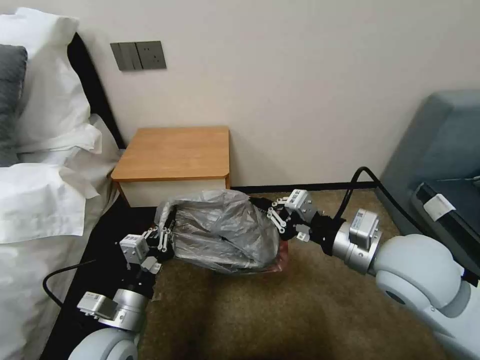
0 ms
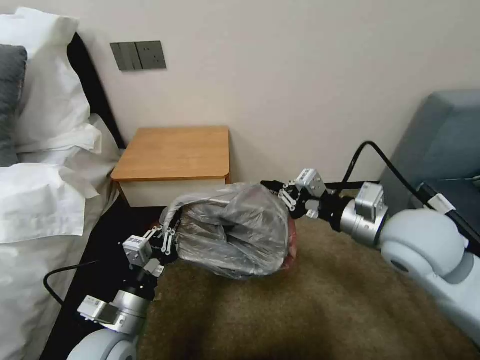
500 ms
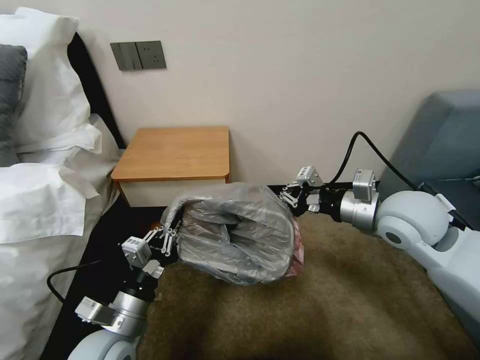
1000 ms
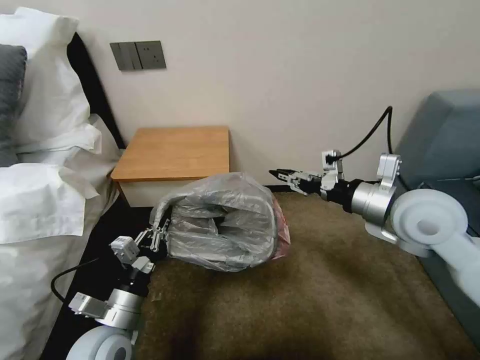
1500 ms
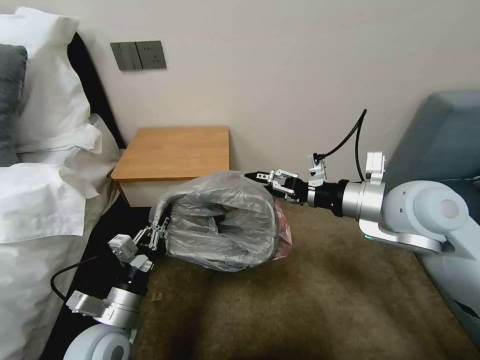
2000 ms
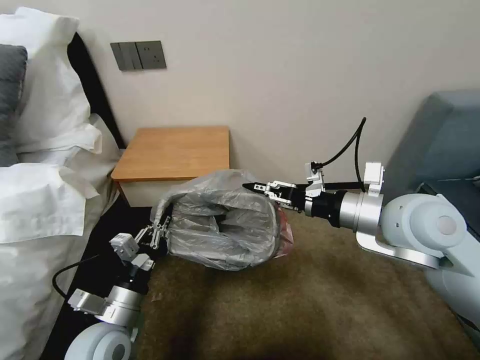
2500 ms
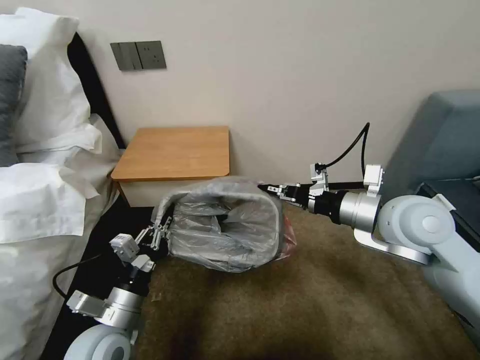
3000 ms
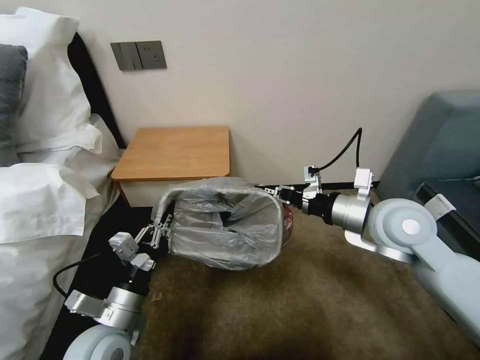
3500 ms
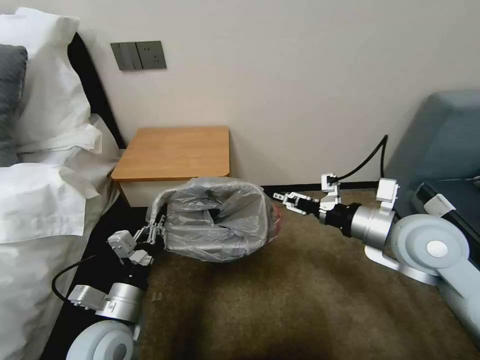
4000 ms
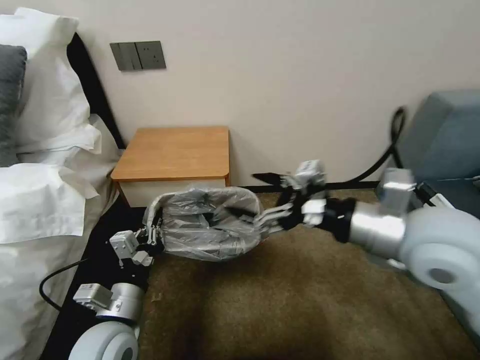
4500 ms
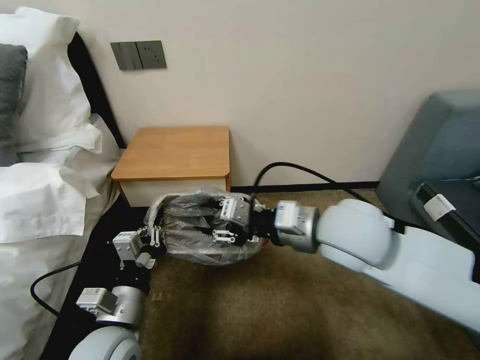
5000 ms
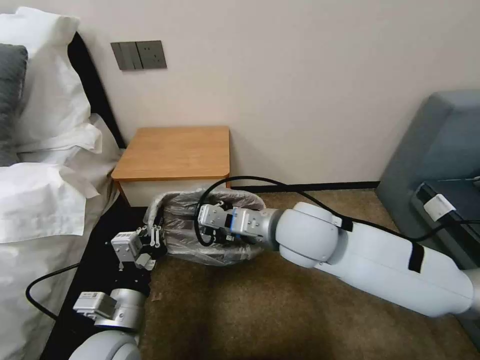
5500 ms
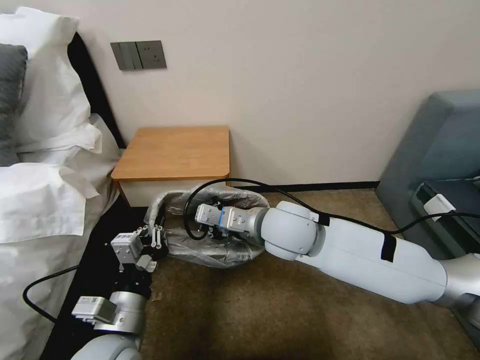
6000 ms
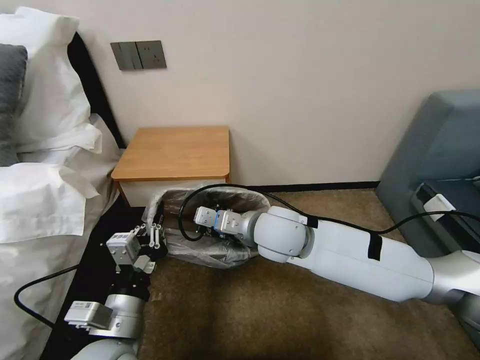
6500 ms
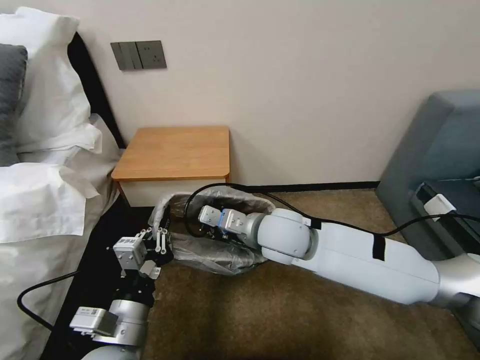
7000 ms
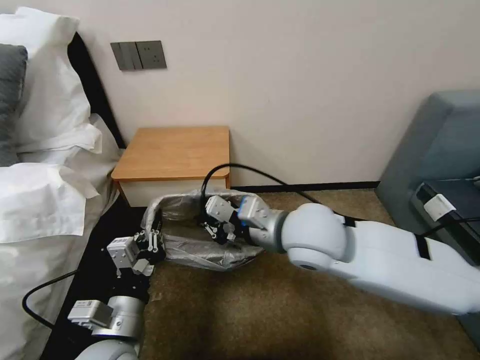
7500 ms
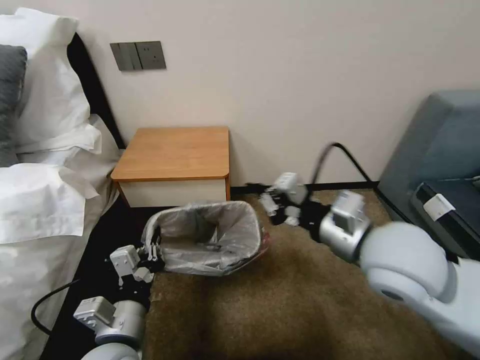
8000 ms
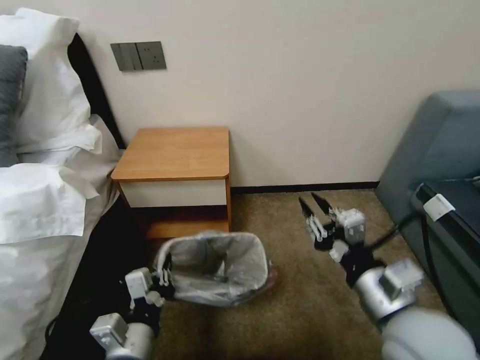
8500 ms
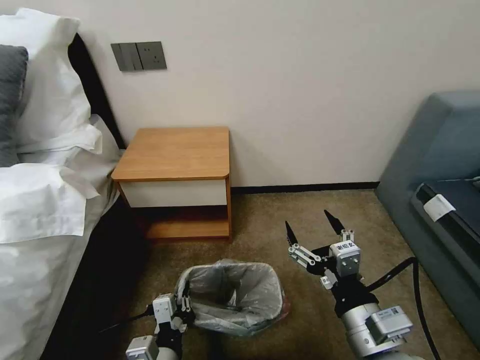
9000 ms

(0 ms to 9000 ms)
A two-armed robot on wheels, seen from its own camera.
Task of the whole recording: Pick up the garbage bag from the table and place it over the trash can.
0 ms - 2000 ms: The right gripper goes some 5 cm forward, and opens.
2000 ms - 4500 ms: The right gripper goes about 5 cm backward, and closes, then opens again.
4500 ms - 7000 ms: The right gripper goes roughly 20 cm to the left, downward and forward, and closes, while the left gripper moves about 5 cm.
7000 ms - 9000 ms: The left gripper moves downward, about 10 cm, while the right gripper travels backward and to the right by about 25 cm, and opens its fingers.

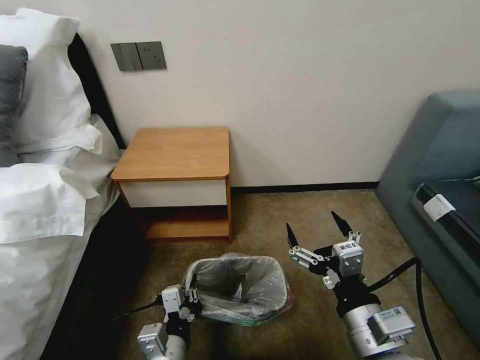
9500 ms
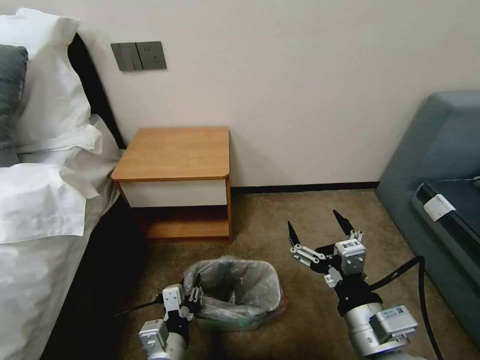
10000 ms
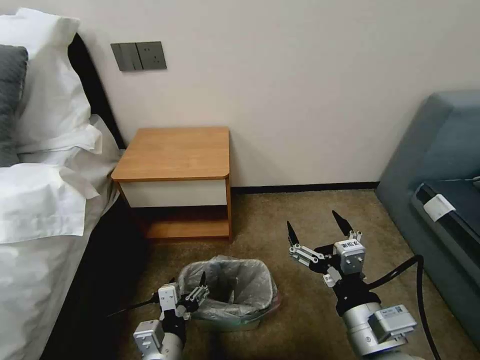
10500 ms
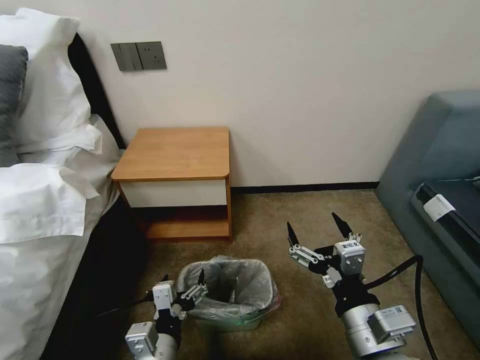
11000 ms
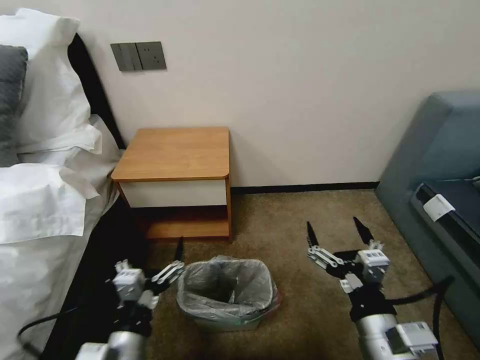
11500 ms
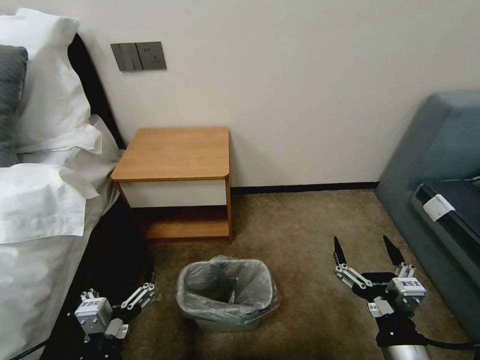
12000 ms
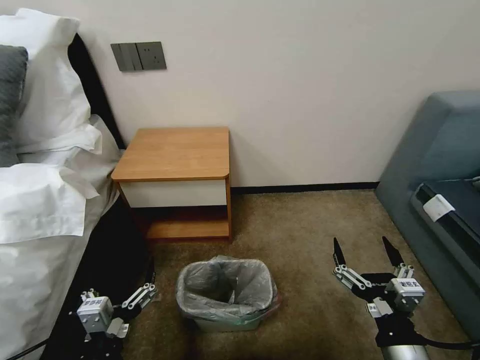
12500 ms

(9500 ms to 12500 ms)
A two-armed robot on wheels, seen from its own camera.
Task of the whole recording: Pick up the garbage bag from the table and place it over the trash can.
9500 ms - 11000 ms: The left gripper opens up.
11000 ms - 12500 ms: The left gripper is displaced to the left and backward by approximately 10 cm; the right gripper is displaced downward and to the right by some 5 cm.

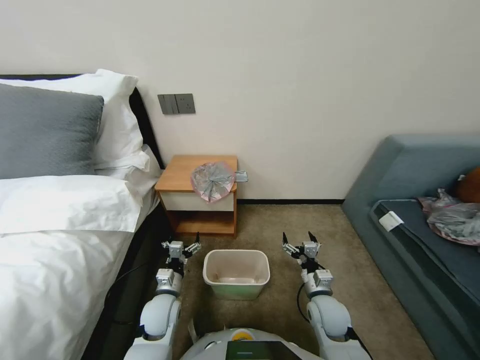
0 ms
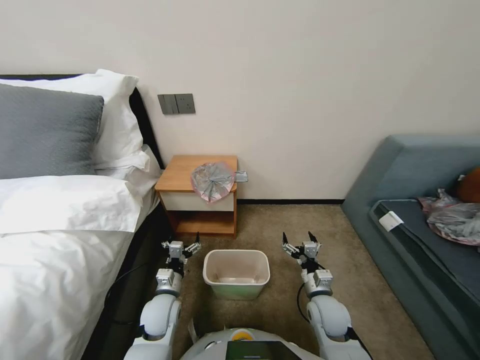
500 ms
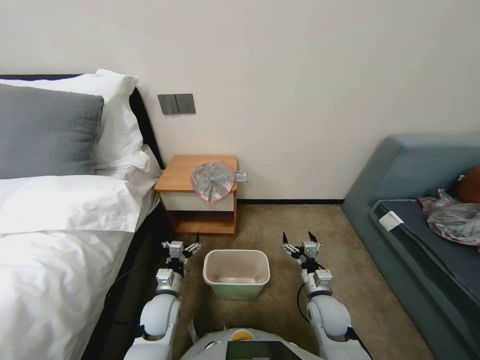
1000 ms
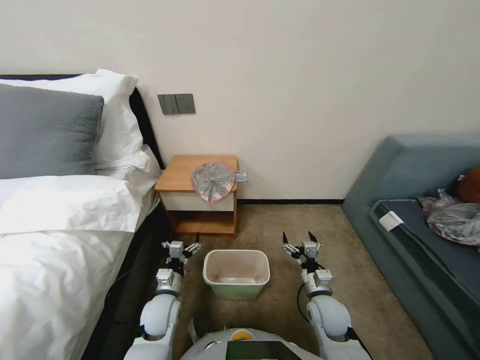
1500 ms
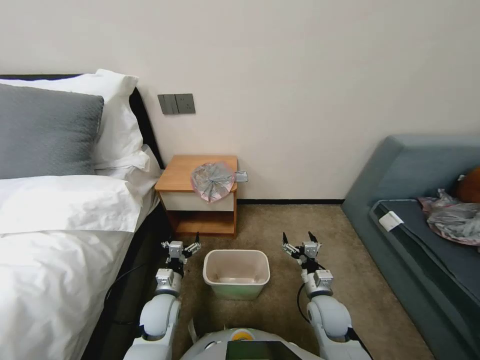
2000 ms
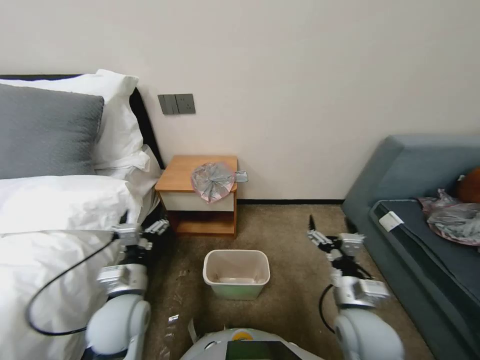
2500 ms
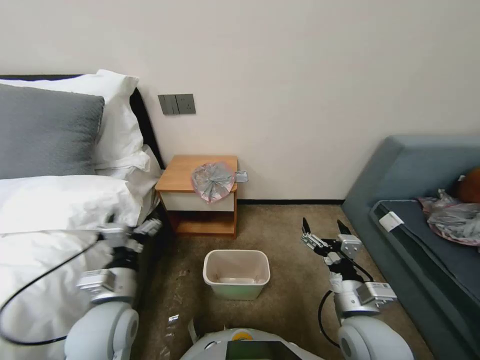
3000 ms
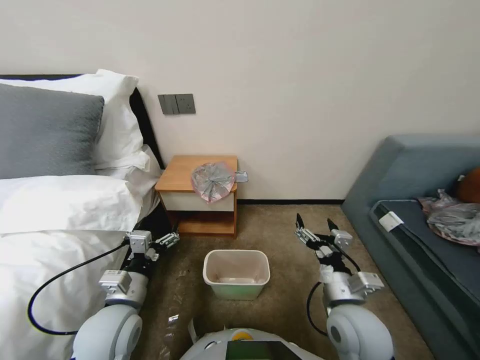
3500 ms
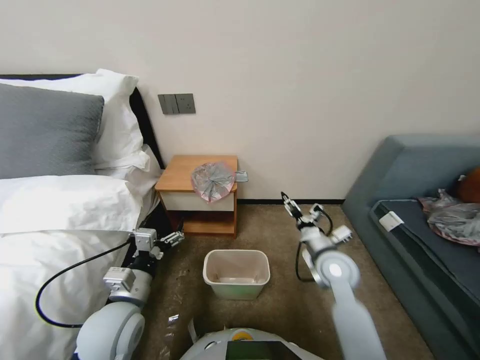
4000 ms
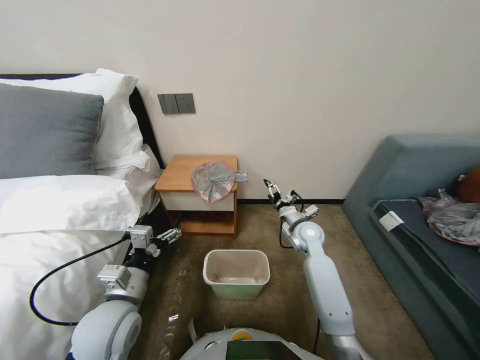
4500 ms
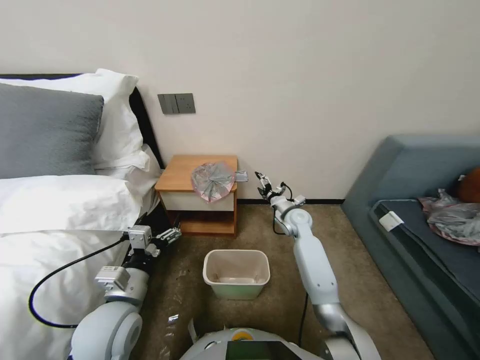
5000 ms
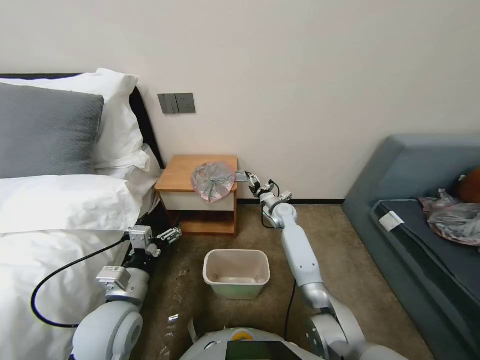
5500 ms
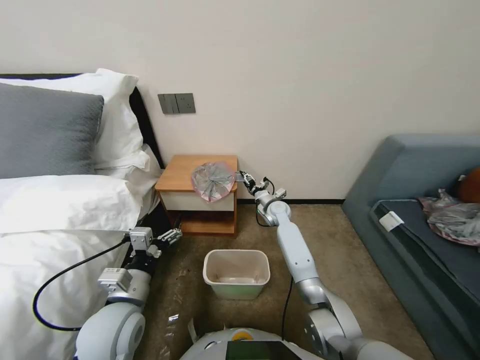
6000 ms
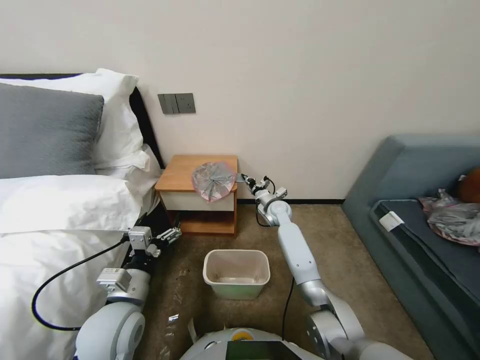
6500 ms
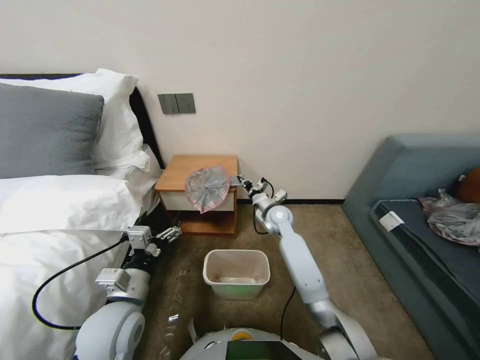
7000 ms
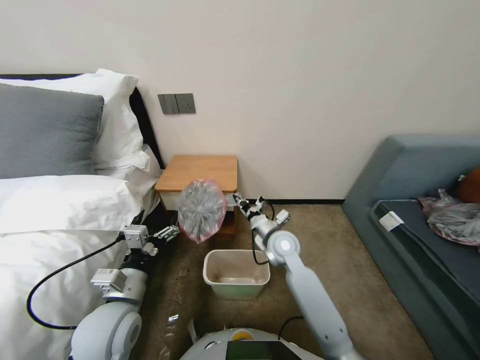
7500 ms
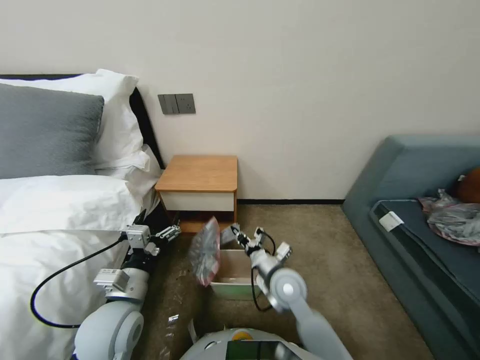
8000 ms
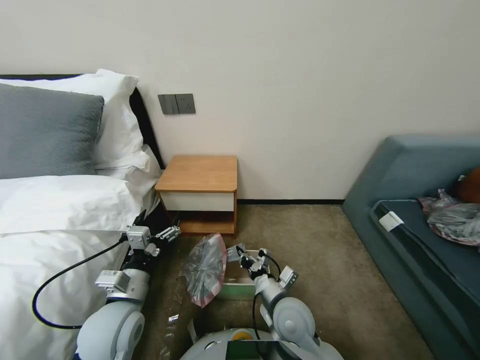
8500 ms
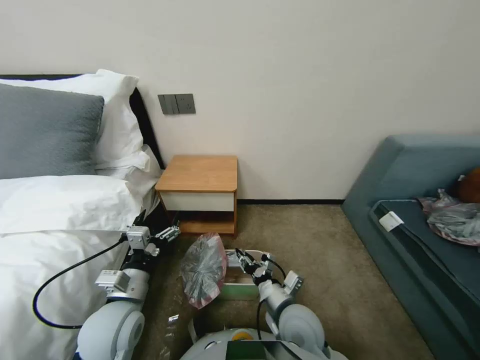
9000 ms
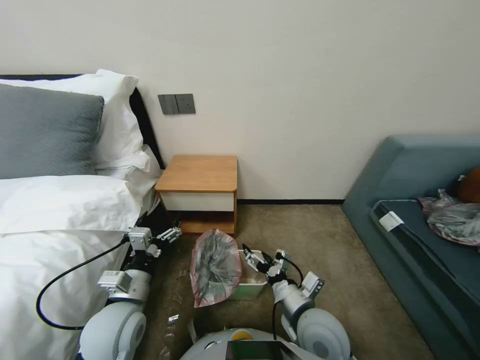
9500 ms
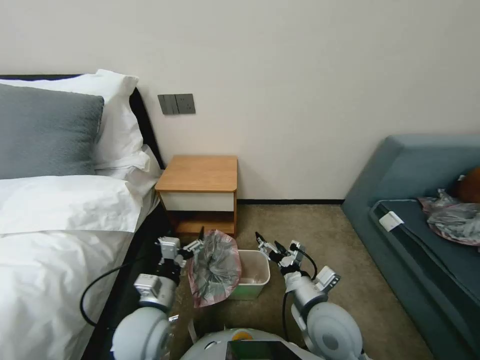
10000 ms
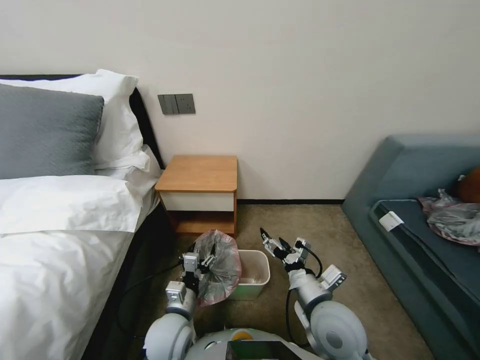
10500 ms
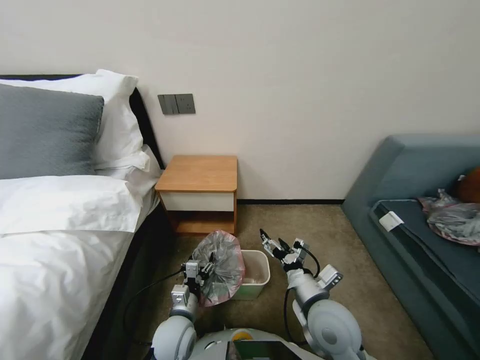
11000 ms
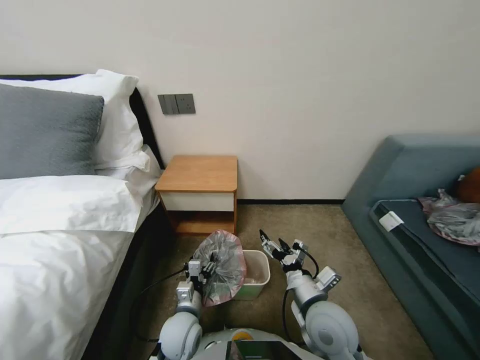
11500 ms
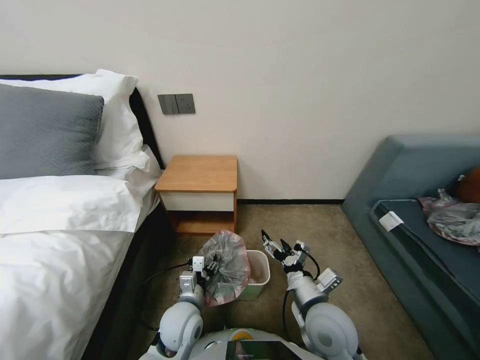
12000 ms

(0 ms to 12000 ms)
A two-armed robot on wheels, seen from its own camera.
Task of the whole recording: Pick up the garbage bag from the table and place it over the trash can.
2000 ms - 4000 ms: The two grippers go approximately 15 cm upward.
4000 ms - 6000 ms: The right gripper moves forward, approximately 25 cm.
6000 ms - 8000 ms: The right gripper is displaced backward by some 25 cm, and closes its fingers.
8000 ms - 10000 ms: The right gripper heads backward and to the right, covering approximately 10 cm, and opens.
10000 ms - 12000 ms: The left gripper travels downward and to the right by roughly 10 cm, and closes up.

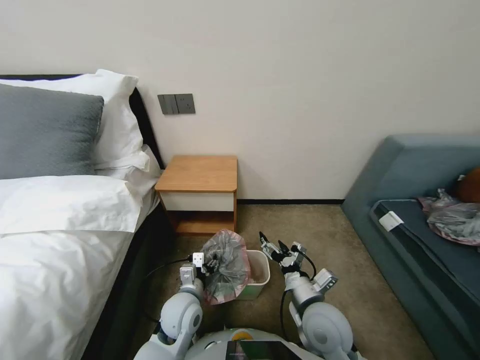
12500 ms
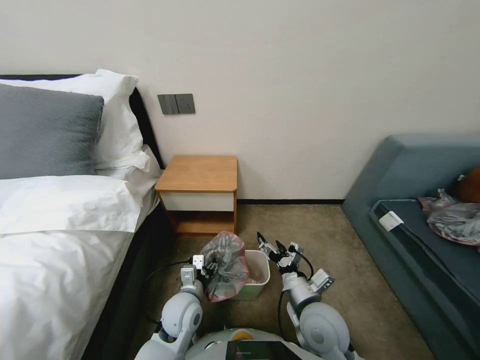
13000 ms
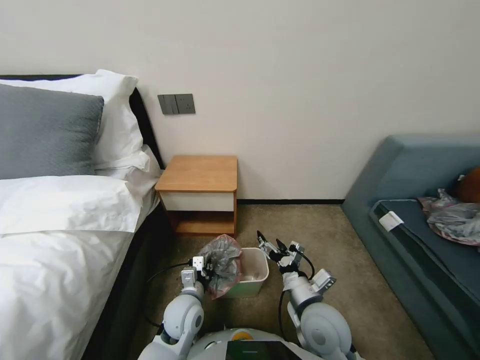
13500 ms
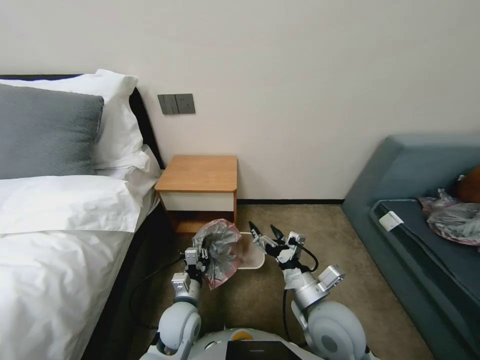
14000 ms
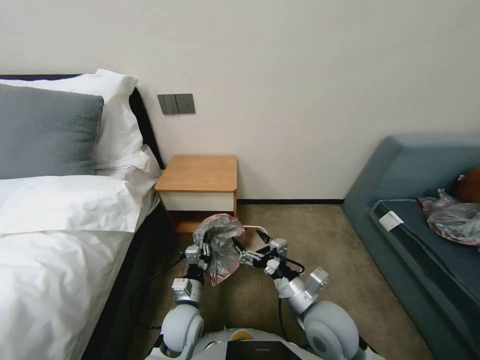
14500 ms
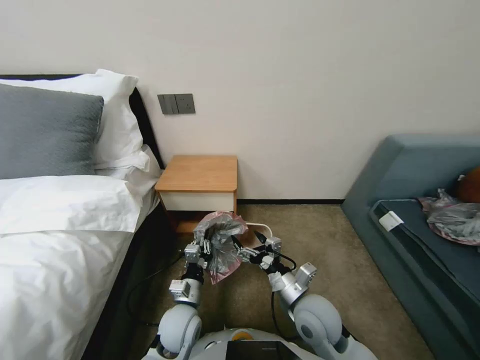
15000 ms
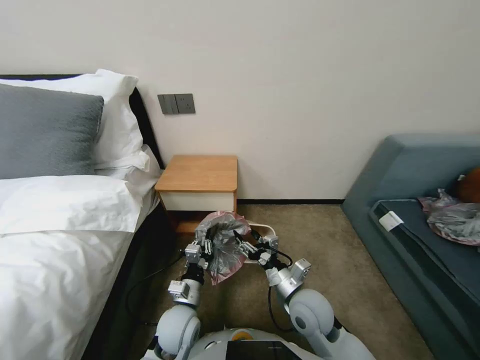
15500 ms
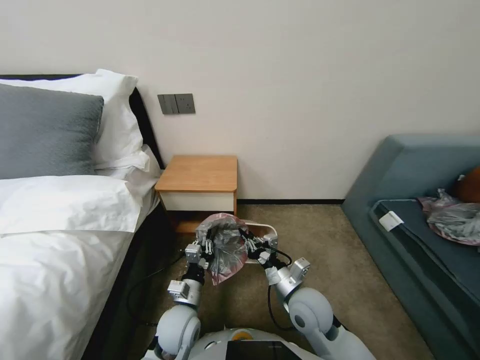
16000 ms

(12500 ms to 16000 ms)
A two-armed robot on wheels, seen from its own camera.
Task of the whole recording: Pick up the garbage bag from the table and place it over the trash can.
12500 ms - 14500 ms: The left gripper closes up.
14500 ms - 16000 ms: The right gripper moves some 5 cm, and closes its fingers.
